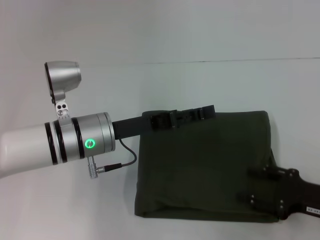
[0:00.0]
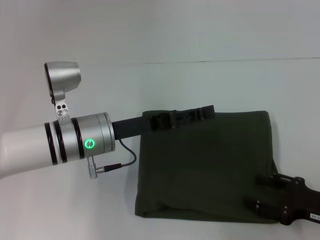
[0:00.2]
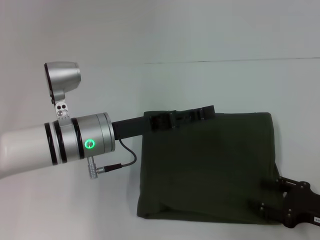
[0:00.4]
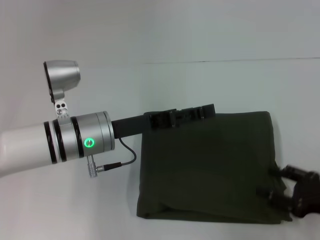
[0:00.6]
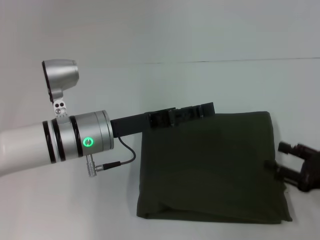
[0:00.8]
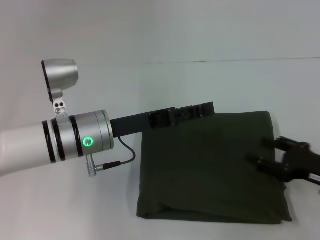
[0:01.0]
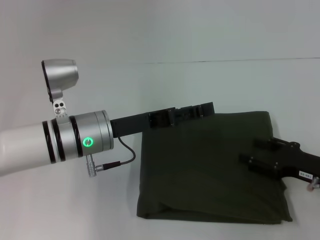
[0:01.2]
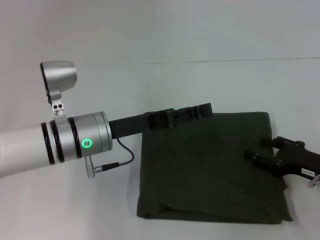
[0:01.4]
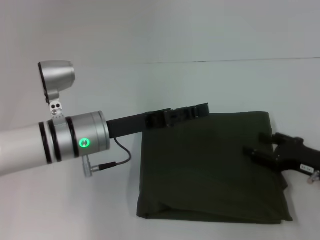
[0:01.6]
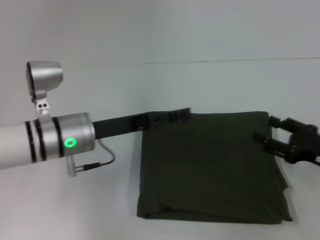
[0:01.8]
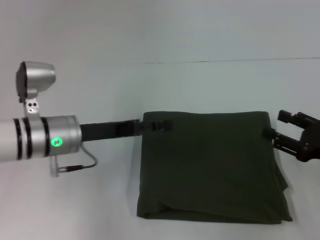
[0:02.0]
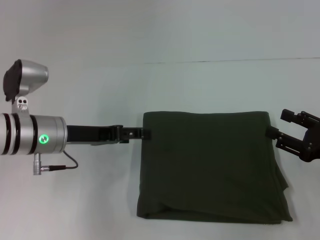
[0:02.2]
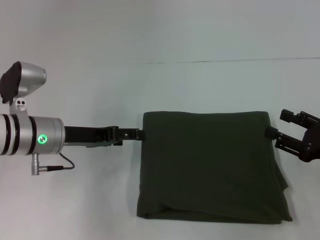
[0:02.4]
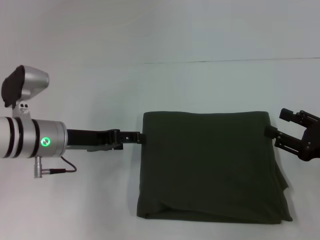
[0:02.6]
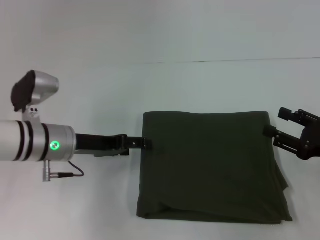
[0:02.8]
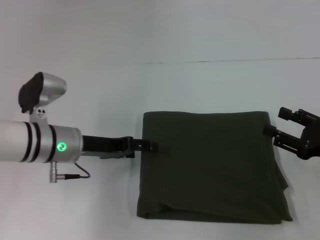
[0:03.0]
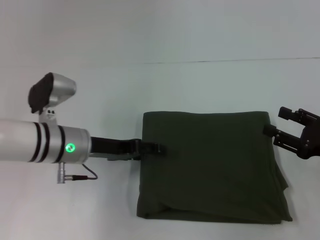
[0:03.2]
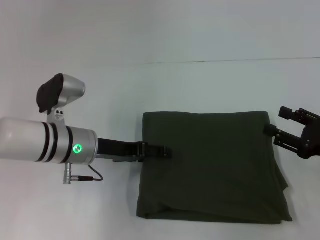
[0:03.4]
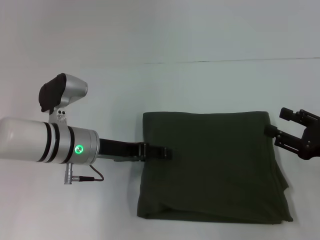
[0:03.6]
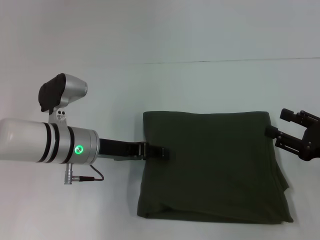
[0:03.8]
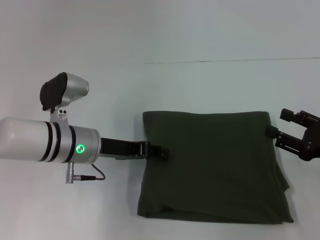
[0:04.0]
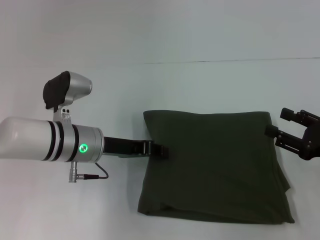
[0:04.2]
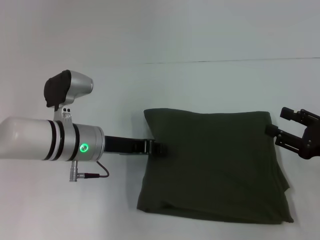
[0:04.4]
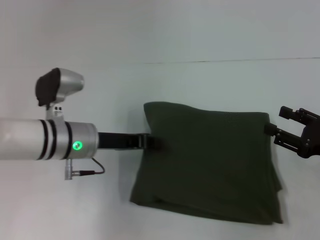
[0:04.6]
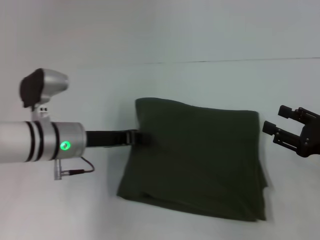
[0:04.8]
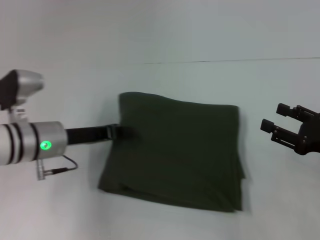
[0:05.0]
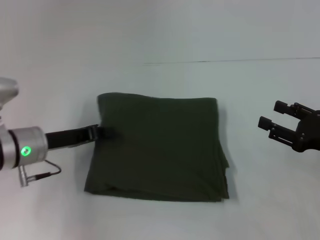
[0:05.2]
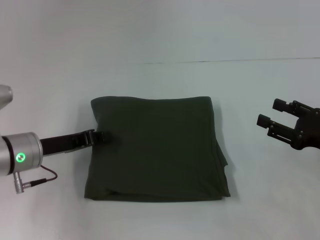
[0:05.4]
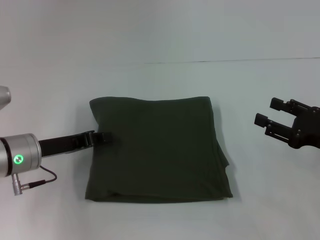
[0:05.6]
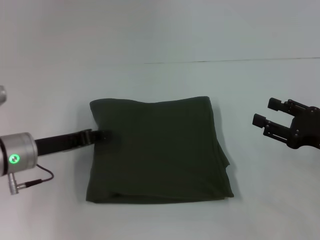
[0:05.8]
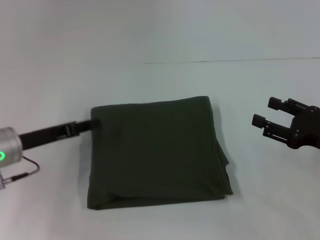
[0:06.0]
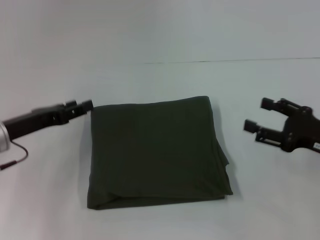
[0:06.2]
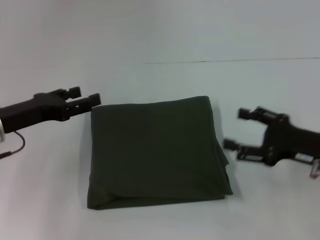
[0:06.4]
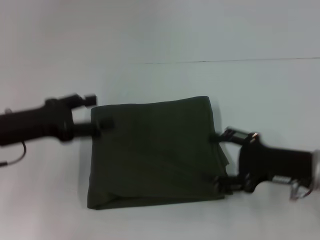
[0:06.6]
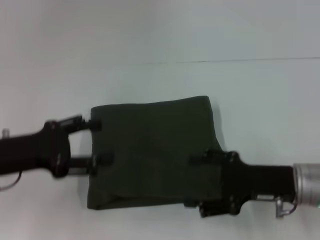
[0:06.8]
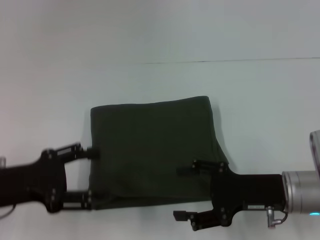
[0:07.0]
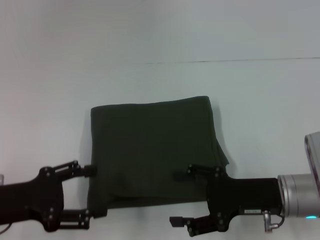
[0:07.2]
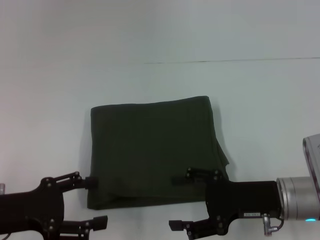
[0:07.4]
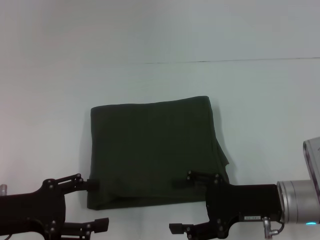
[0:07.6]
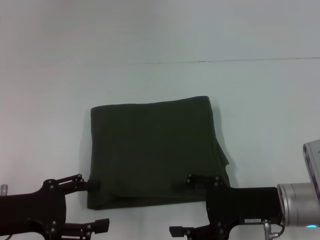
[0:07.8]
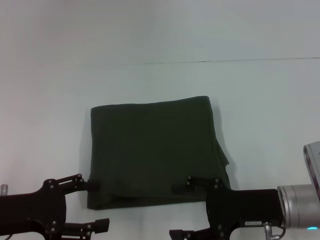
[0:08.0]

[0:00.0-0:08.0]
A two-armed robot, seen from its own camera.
0:00.0 to 0:01.6: The grippers stay close to where they were, moving slightly.
0:03.2 to 0:04.8: The left gripper closes up.
0:04.8 to 0:06.4: The left gripper moves to the left, roughly 10 cm, and opens its fingers; the right gripper moves about 5 cm.
0:06.4 to 0:08.0: The right gripper travels to the left by some 5 cm, while the left gripper is displaced backward by about 10 cm.

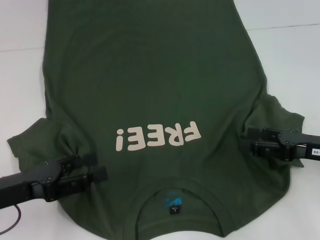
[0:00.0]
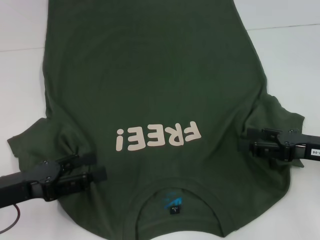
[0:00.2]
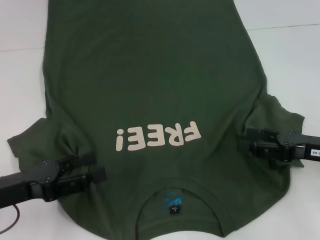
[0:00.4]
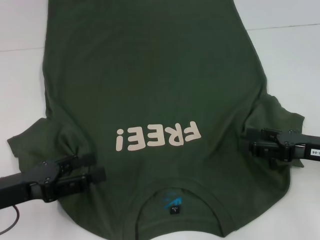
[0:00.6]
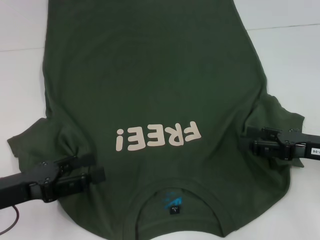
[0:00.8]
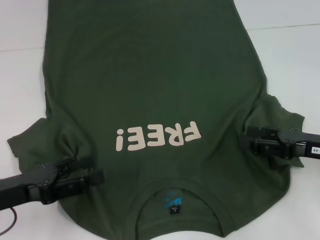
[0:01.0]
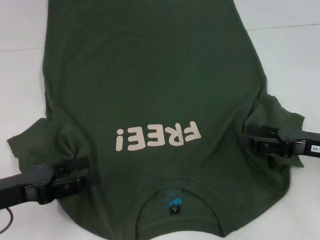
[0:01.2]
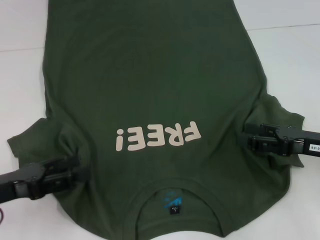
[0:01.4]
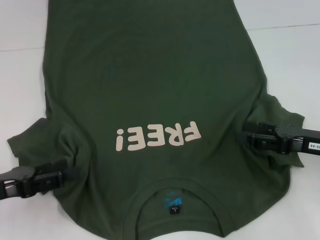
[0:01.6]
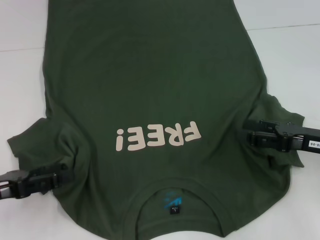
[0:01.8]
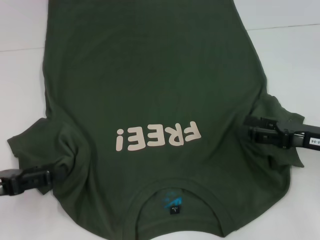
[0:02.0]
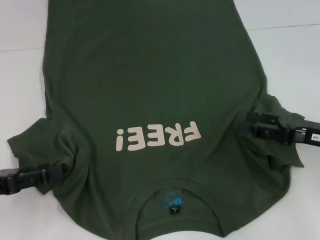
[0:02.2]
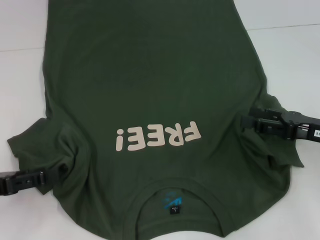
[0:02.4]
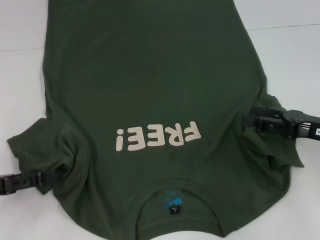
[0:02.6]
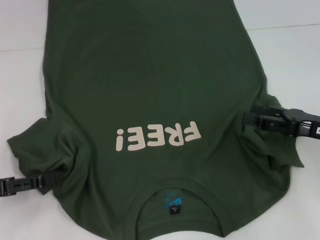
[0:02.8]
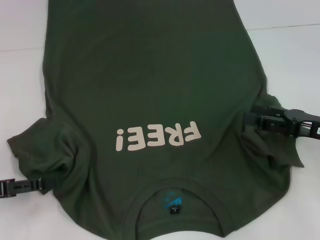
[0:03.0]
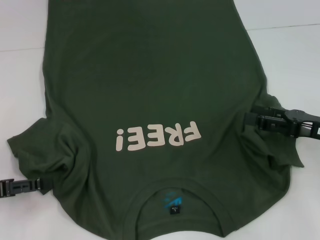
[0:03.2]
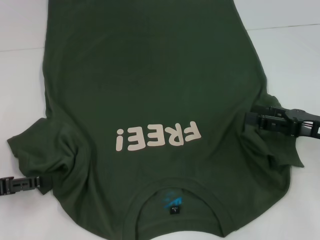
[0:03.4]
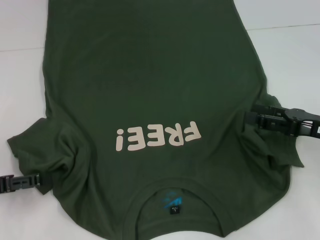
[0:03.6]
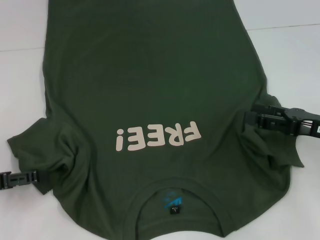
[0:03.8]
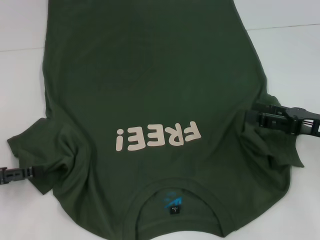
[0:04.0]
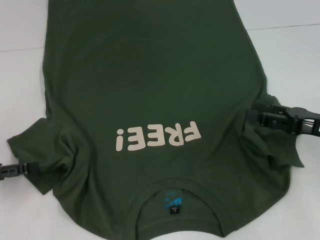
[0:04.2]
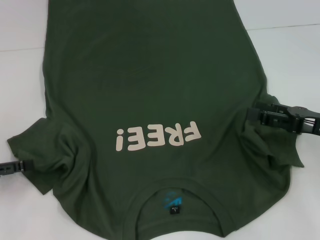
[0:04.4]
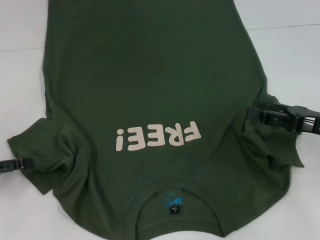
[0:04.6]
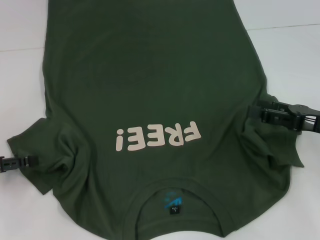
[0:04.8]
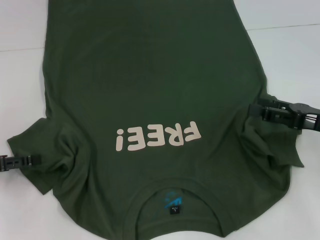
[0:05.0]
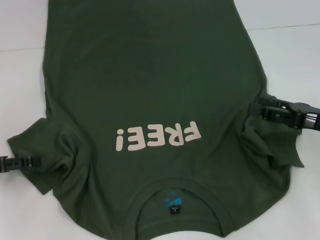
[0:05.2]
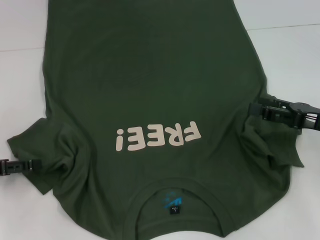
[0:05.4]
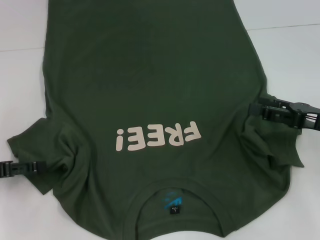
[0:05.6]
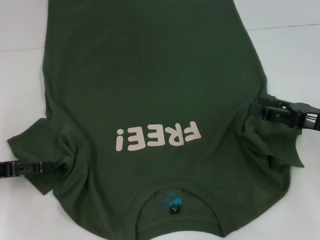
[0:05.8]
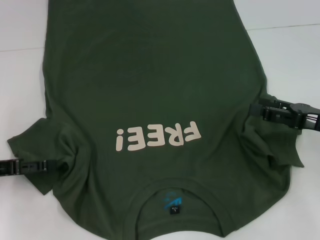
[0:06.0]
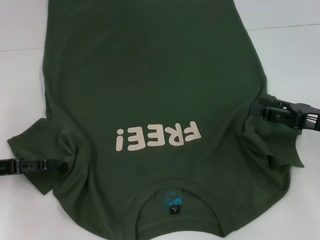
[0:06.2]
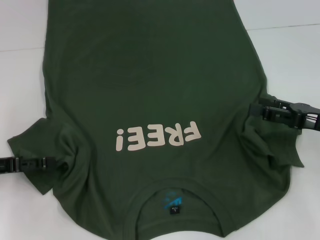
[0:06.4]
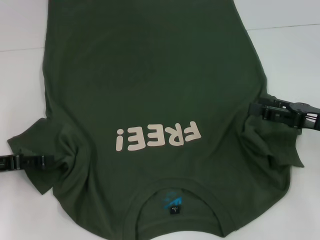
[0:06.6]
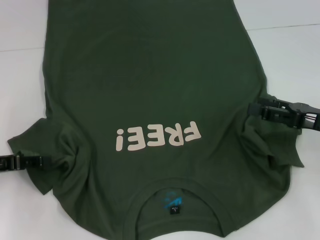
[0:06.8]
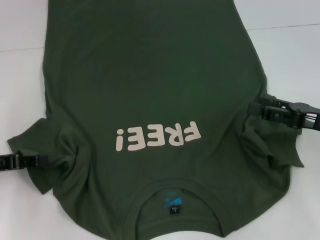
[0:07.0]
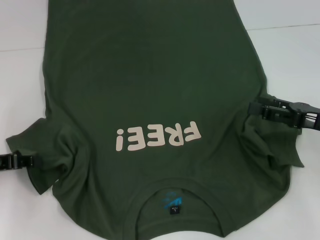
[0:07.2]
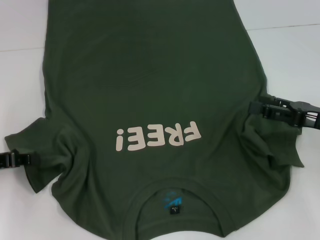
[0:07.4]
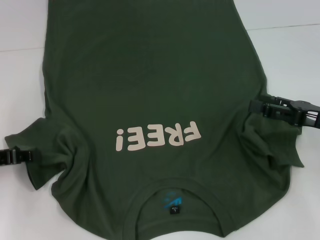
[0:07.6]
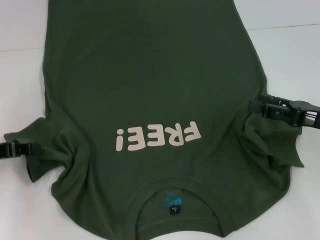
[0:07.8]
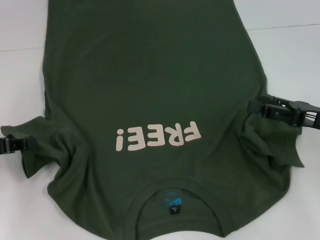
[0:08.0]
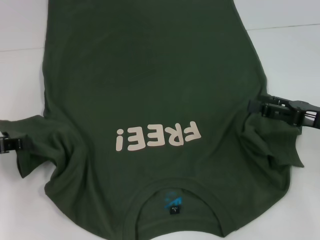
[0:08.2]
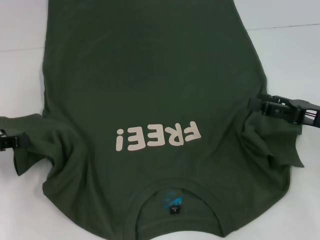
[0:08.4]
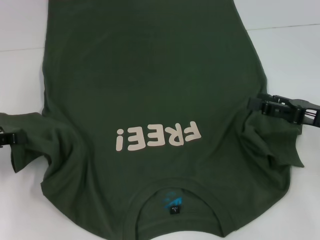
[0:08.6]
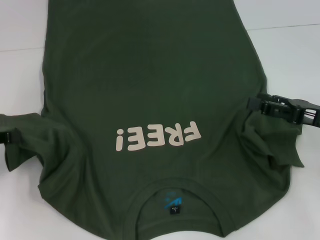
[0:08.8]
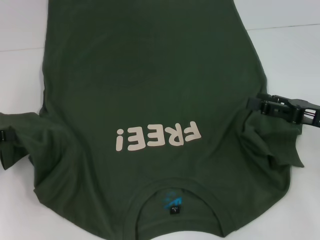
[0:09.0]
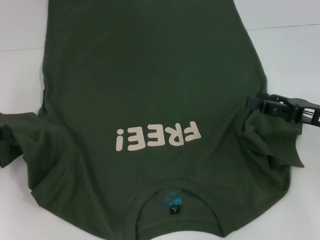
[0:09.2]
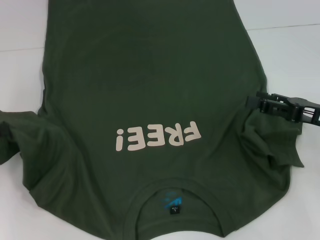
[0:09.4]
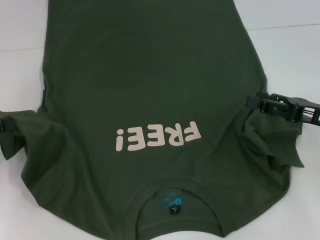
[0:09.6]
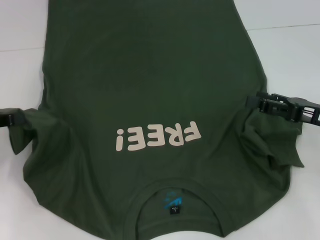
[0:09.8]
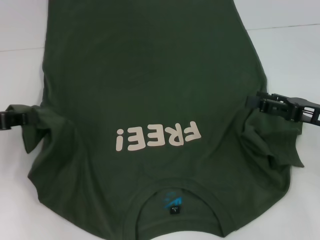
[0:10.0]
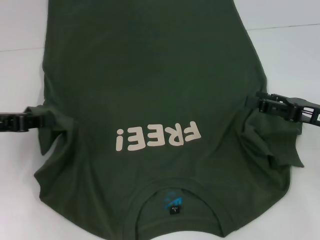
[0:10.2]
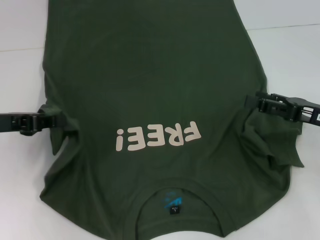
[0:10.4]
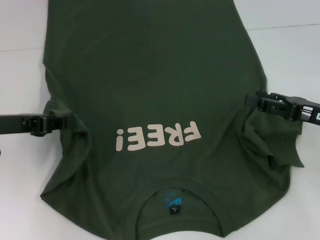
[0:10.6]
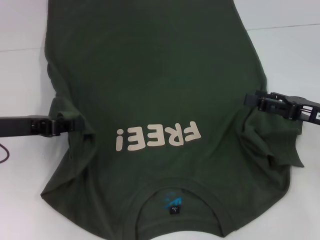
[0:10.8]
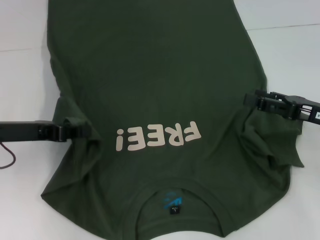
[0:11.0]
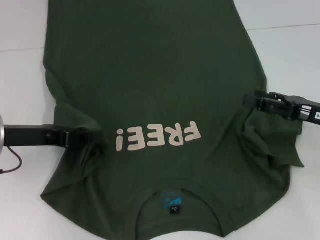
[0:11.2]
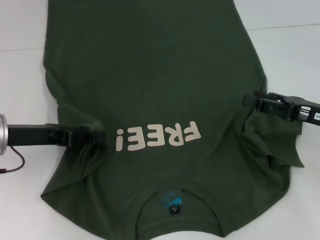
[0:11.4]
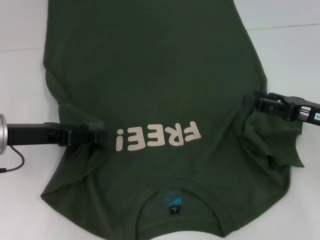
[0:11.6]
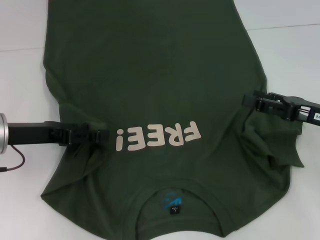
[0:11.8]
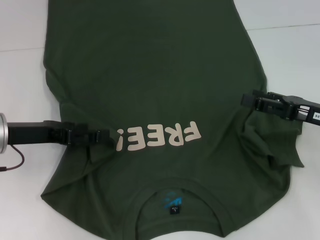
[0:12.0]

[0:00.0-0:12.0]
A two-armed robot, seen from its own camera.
0:00.0 to 0:01.6: The grippers make only small movements.
0:03.0 to 0:06.0: The grippers stay close to where they were, moving slightly.
0:06.0 to 0:07.6: The left gripper closes up.
0:07.6 to 0:09.0: The grippers stay close to where they were, moving slightly.
0:09.0 to 0:10.4: The left gripper shifts about 5 cm to the right.
0:10.4 to 0:12.0: The left gripper opens.

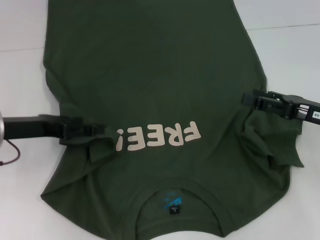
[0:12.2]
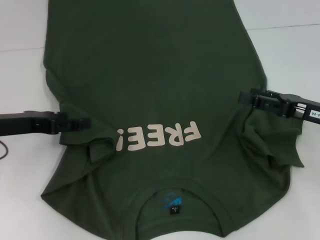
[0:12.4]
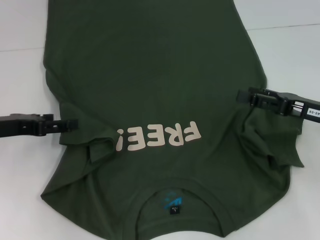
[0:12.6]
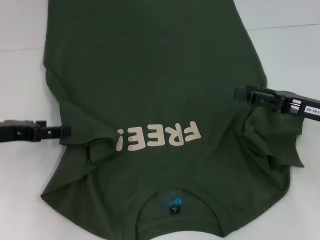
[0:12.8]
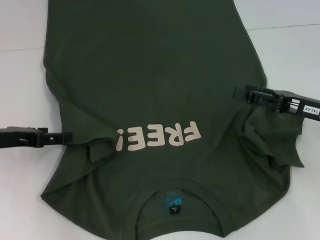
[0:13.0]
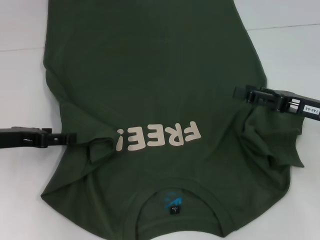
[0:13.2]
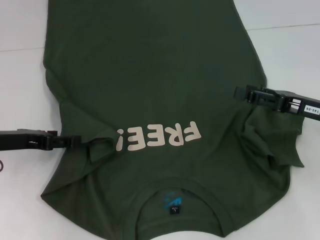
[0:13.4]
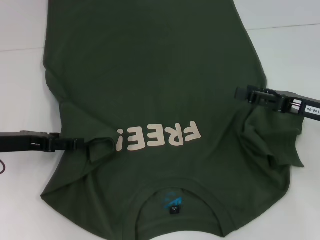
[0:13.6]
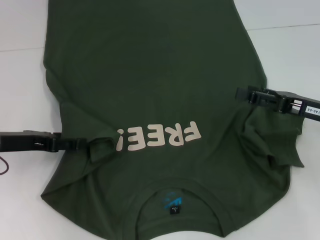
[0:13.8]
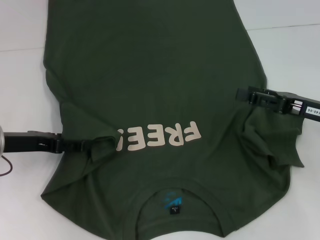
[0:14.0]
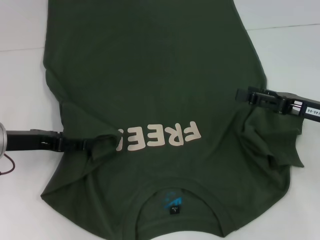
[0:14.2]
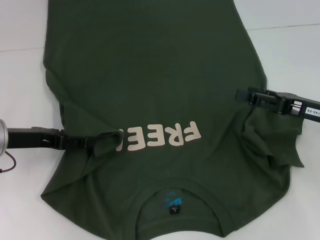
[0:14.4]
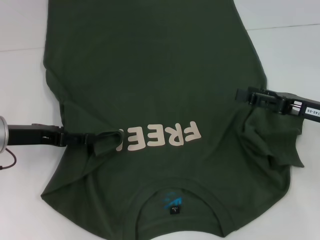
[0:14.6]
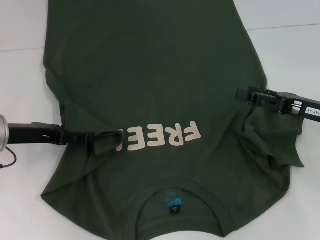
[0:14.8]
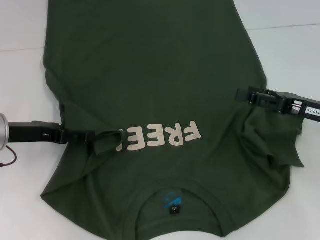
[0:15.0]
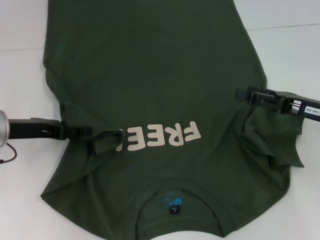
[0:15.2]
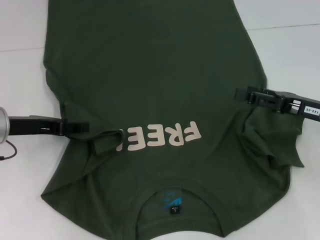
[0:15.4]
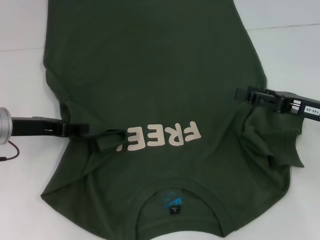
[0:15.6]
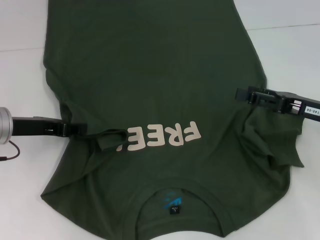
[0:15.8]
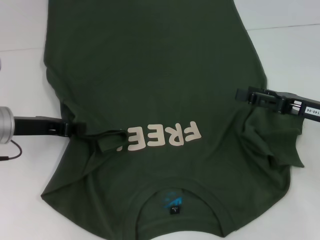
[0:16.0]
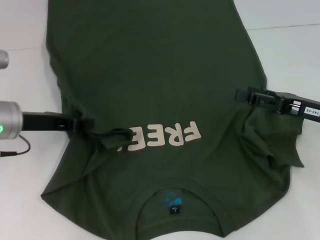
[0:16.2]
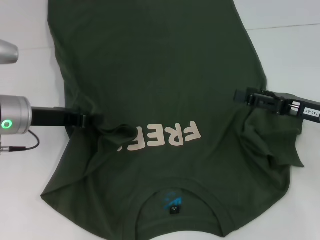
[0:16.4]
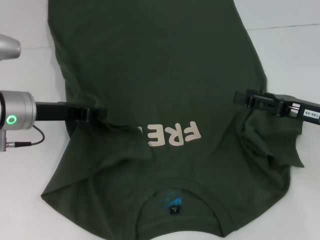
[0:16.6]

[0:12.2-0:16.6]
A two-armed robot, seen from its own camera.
0:12.2 to 0:15.2: The grippers make only small movements.
0:15.2 to 0:16.6: The left gripper closes.
